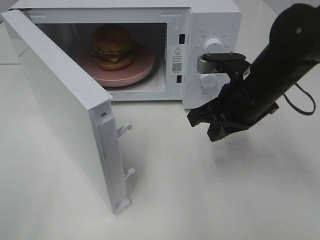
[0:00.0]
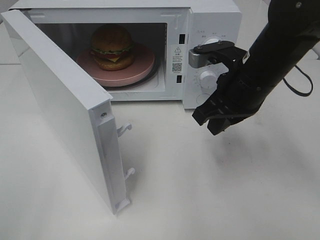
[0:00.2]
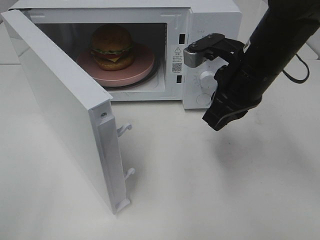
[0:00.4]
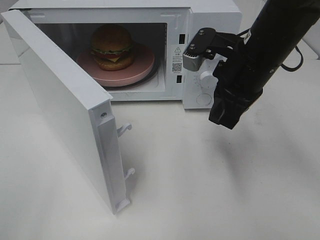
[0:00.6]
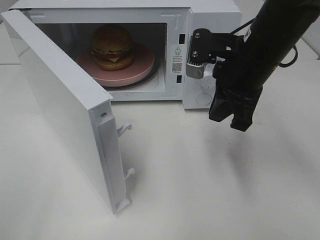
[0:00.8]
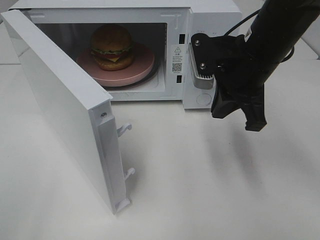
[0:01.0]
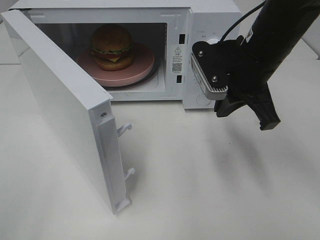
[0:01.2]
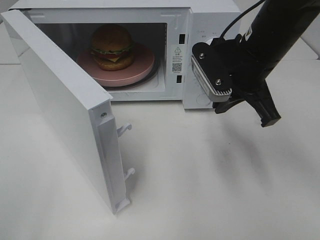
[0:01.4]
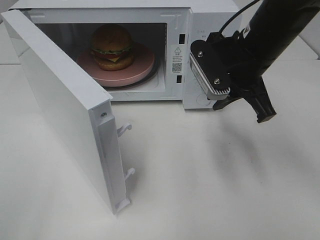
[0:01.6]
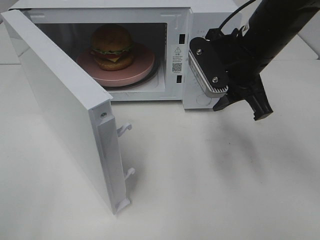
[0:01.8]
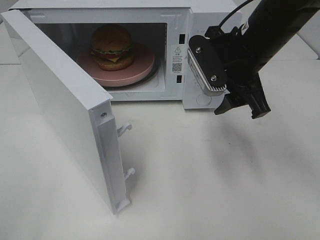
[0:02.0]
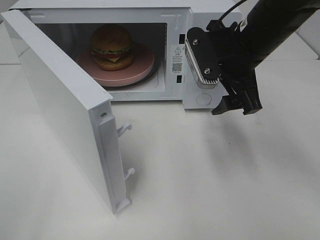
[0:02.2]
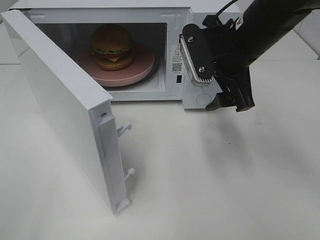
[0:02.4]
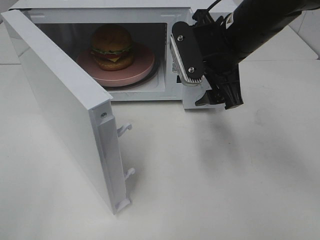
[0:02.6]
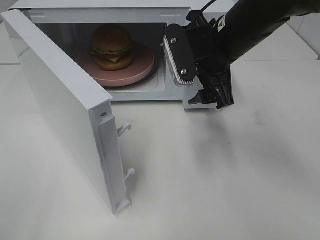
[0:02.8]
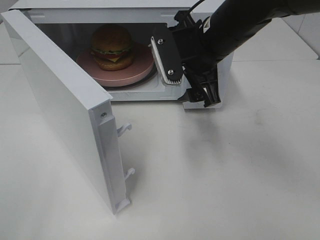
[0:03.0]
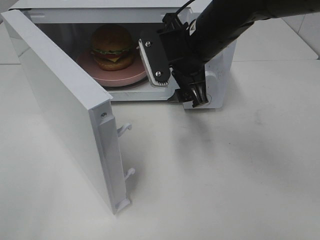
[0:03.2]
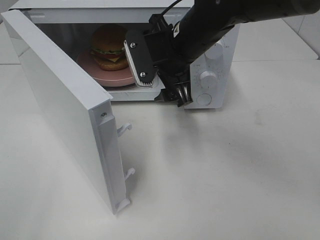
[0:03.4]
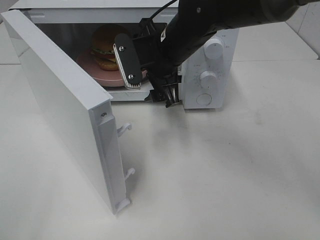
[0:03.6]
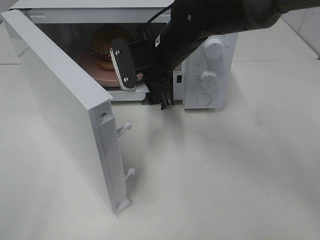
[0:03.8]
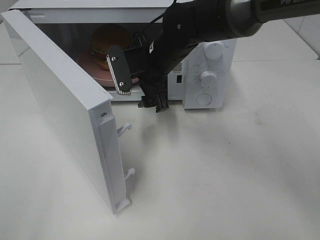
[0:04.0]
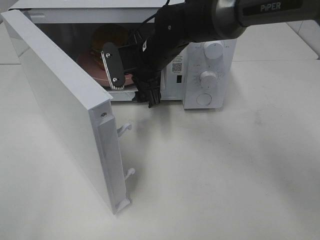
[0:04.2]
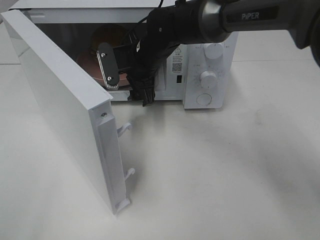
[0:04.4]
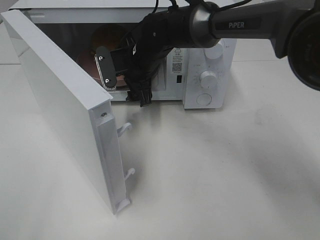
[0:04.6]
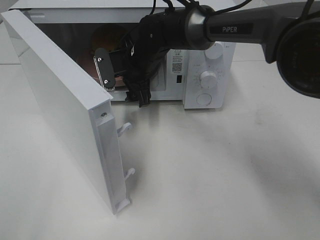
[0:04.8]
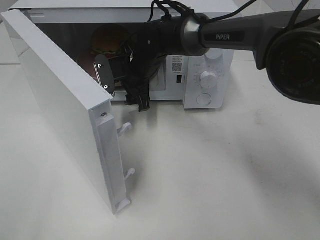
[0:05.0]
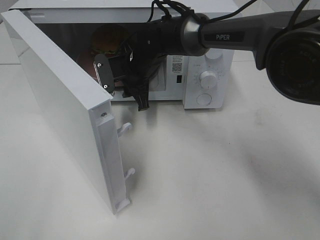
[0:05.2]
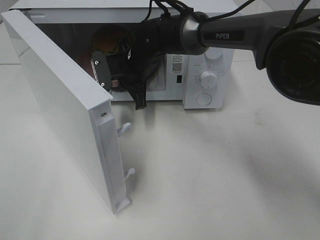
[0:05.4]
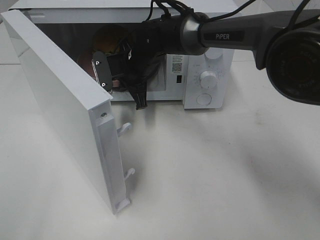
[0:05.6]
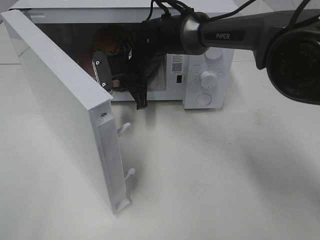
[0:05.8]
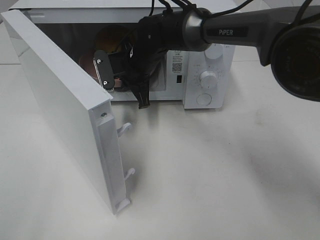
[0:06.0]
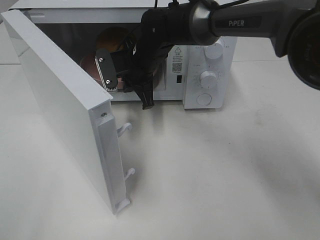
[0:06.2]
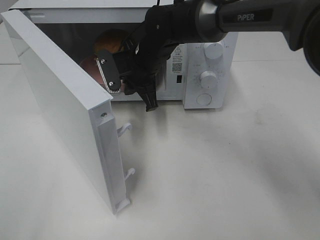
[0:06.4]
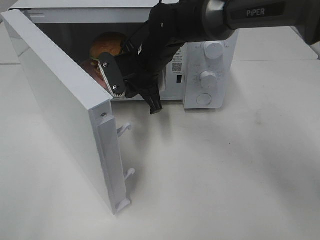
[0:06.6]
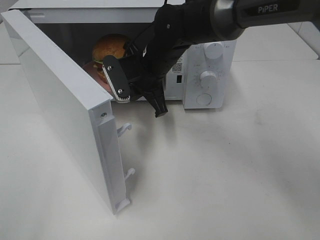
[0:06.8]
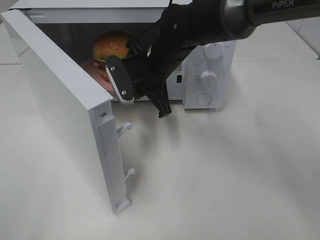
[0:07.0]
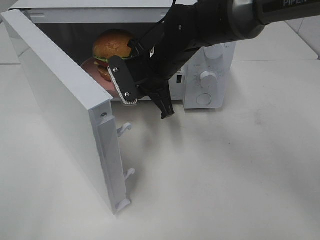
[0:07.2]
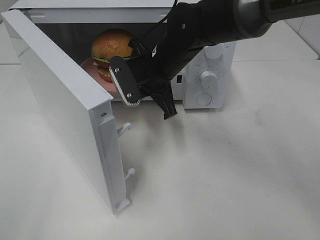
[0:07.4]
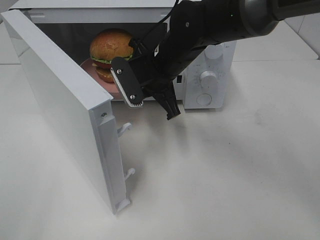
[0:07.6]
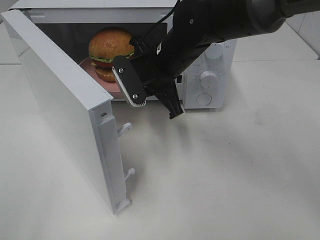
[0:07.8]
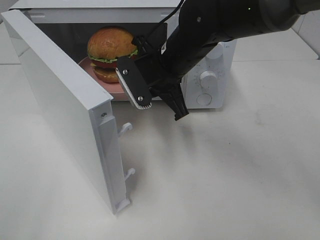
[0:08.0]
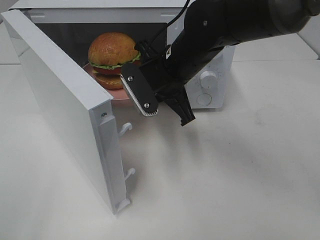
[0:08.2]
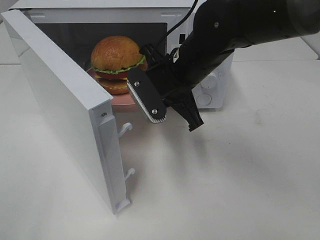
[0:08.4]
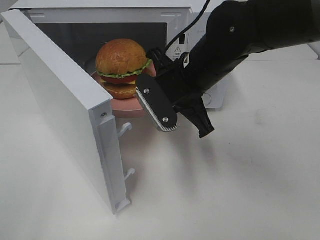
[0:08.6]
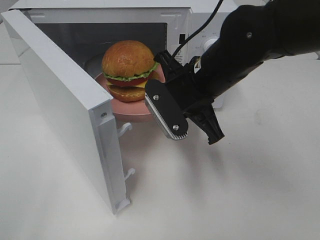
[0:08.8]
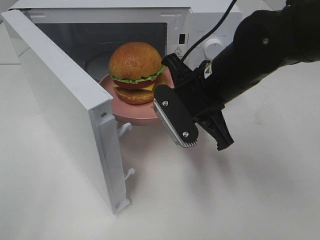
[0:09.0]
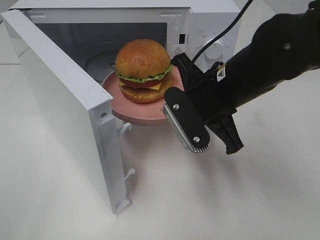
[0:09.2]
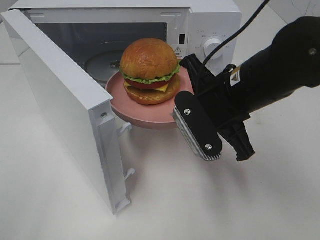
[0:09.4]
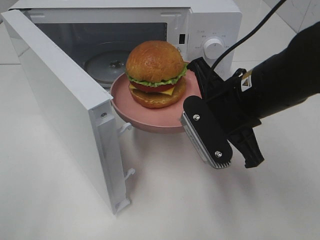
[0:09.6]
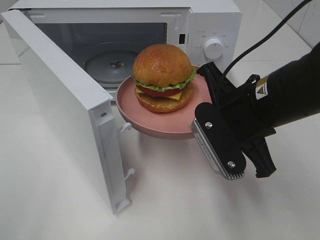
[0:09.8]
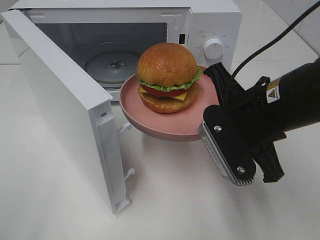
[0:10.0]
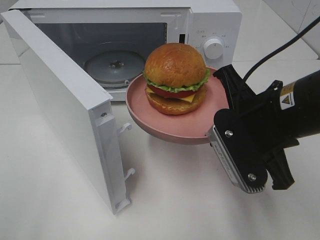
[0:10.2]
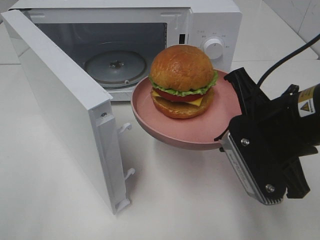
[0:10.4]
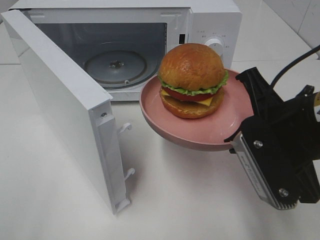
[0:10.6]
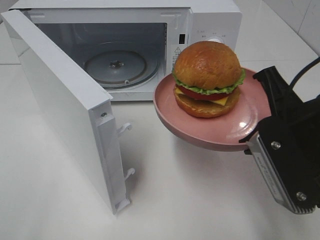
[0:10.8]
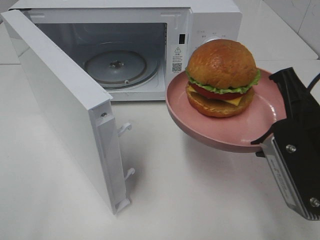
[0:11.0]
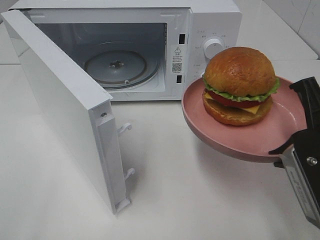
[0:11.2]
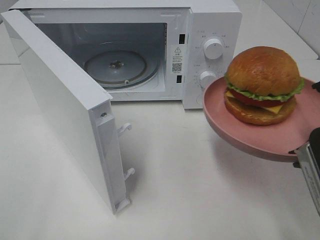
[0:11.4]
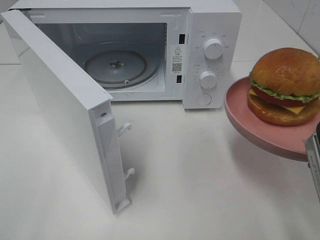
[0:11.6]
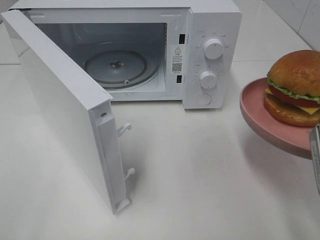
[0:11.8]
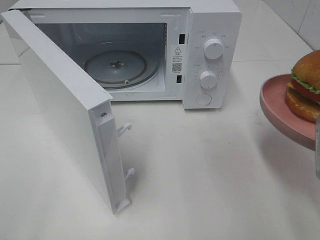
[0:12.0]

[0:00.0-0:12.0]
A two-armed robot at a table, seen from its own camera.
Task of the whole recording: Heat the burger.
Step, 0:00.0 to 0:06.0: Right hand: grab the plate with the hamburger.
0:00.0 to 0:01.6: The right gripper moves roughly 5 cm.
0:01.6 to 0:03.0: The right gripper goes roughly 5 cm to the left, and opens up.
0:03.0 to 0:04.4: The right gripper is displaced to the left, forward and downward by about 15 cm.
0:04.4 to 0:06.0: The right gripper closes up.
0:06.0 to 0:07.6: The right gripper heads backward, covering some 5 cm.
0:07.6 to 0:09.0: The right gripper shifts about 10 cm backward and to the right.
0:09.0 to 0:10.4: The right gripper is displaced backward and to the right by some 10 cm.
0:10.4 to 0:12.0: The right gripper is displaced to the right and backward by approximately 10 cm.

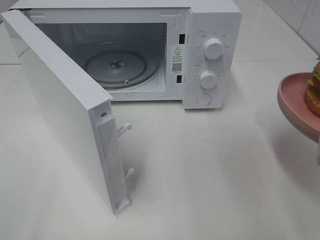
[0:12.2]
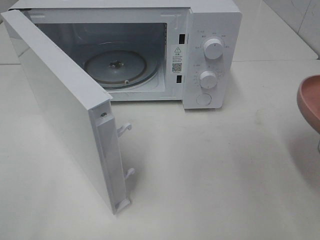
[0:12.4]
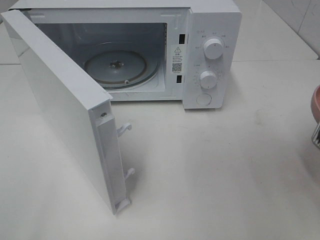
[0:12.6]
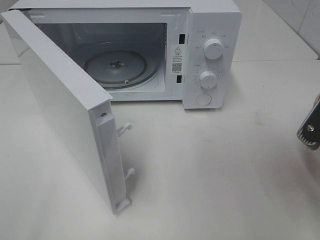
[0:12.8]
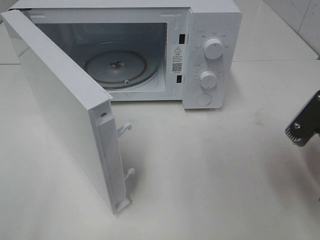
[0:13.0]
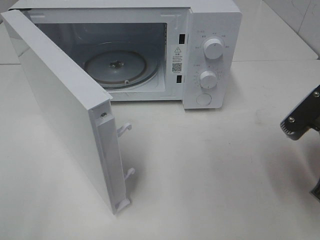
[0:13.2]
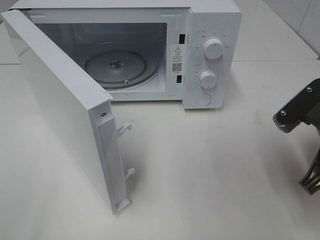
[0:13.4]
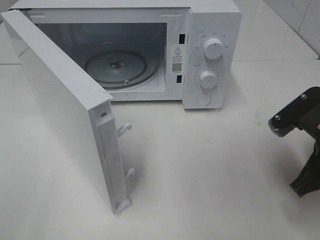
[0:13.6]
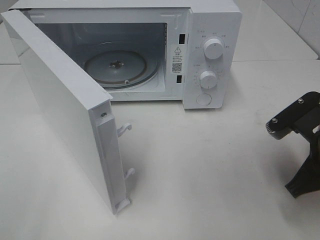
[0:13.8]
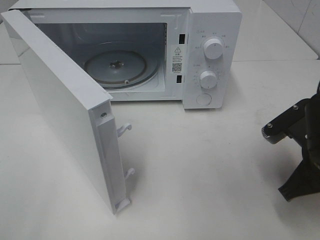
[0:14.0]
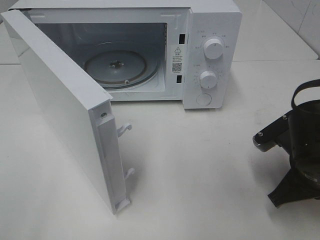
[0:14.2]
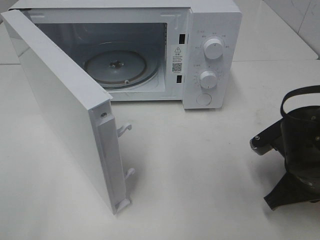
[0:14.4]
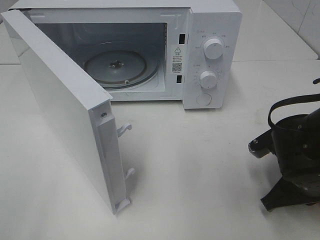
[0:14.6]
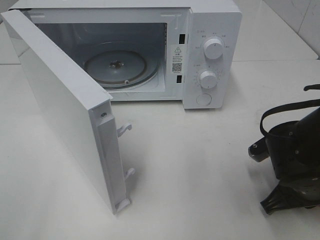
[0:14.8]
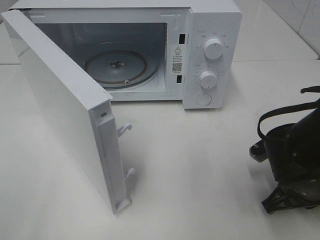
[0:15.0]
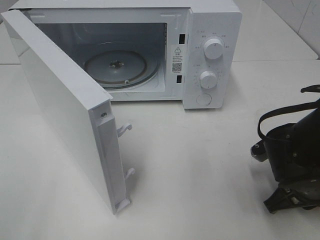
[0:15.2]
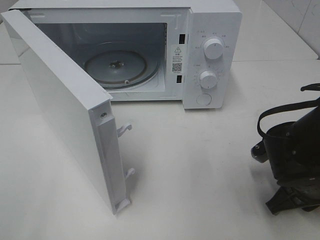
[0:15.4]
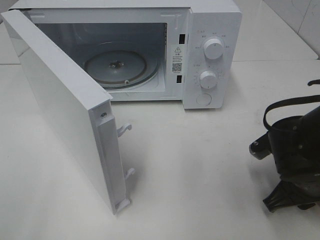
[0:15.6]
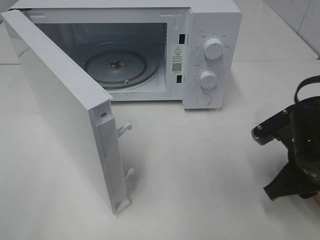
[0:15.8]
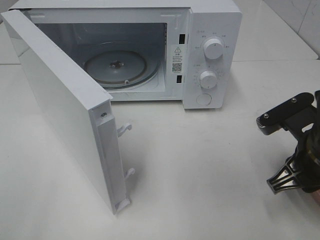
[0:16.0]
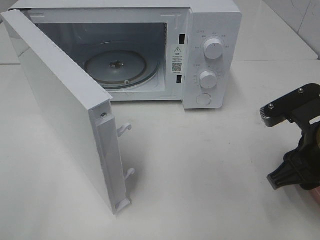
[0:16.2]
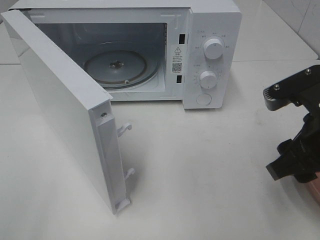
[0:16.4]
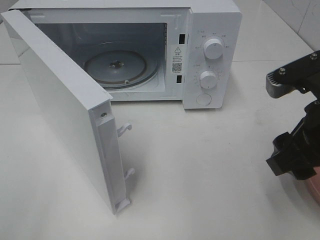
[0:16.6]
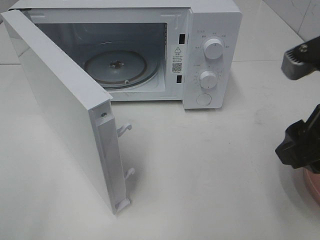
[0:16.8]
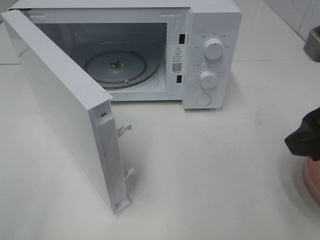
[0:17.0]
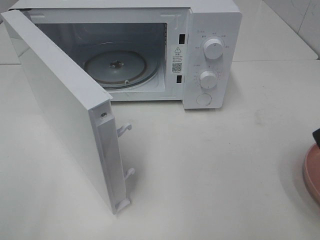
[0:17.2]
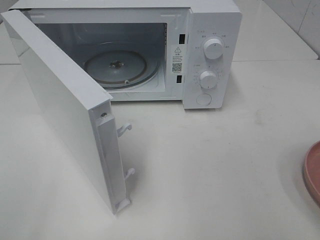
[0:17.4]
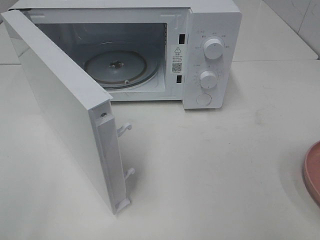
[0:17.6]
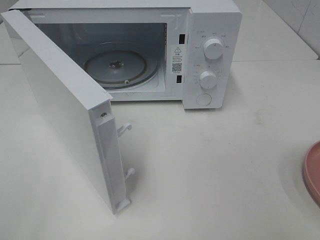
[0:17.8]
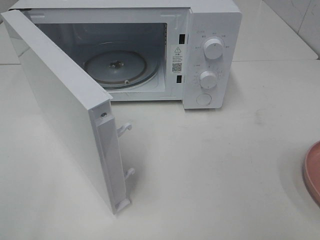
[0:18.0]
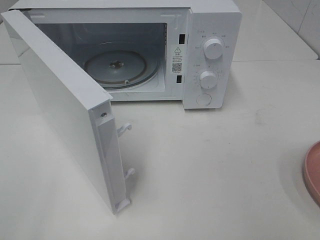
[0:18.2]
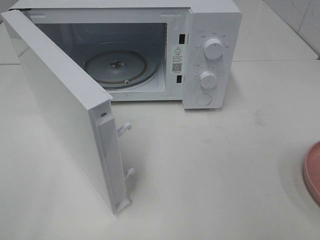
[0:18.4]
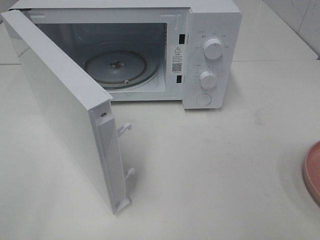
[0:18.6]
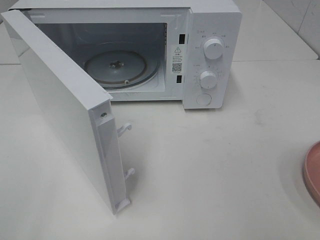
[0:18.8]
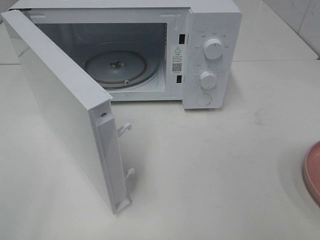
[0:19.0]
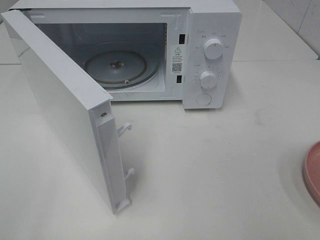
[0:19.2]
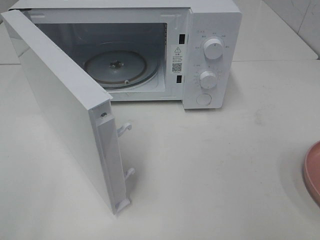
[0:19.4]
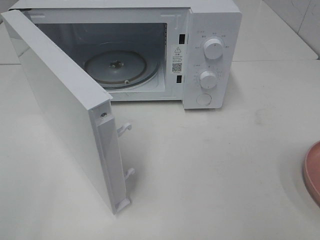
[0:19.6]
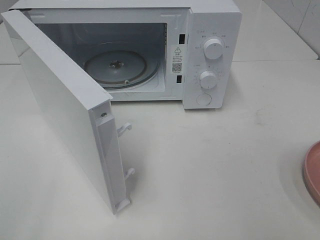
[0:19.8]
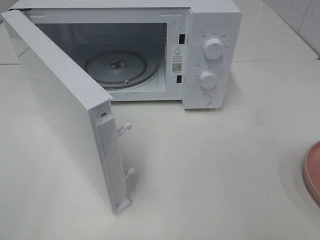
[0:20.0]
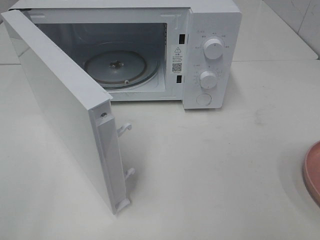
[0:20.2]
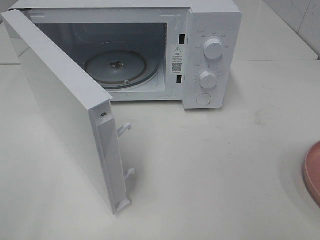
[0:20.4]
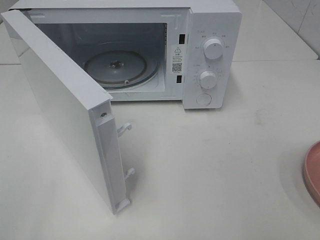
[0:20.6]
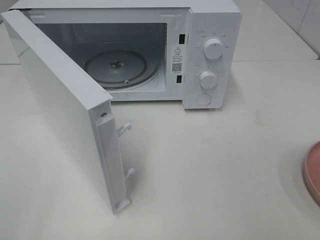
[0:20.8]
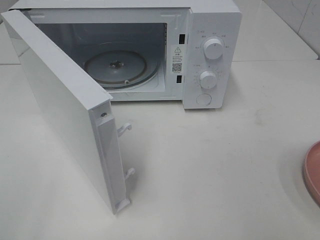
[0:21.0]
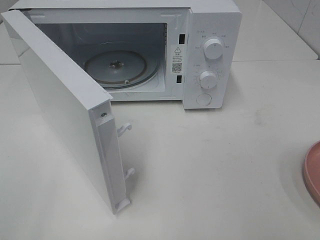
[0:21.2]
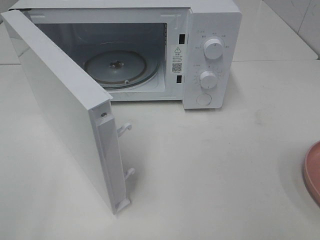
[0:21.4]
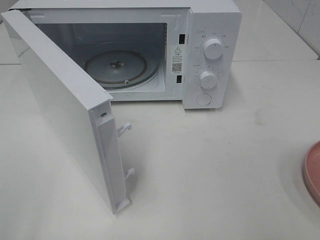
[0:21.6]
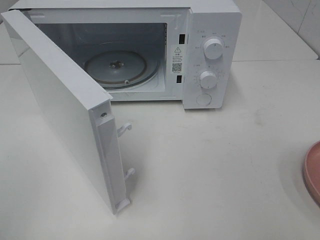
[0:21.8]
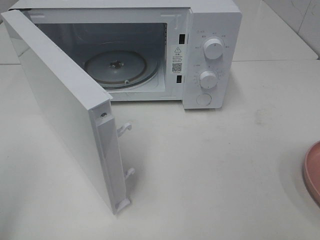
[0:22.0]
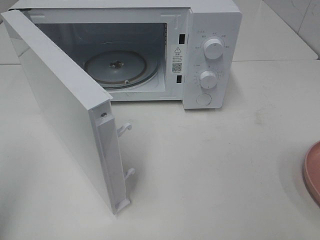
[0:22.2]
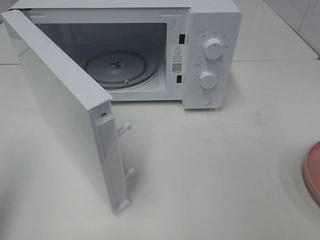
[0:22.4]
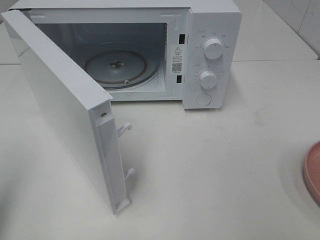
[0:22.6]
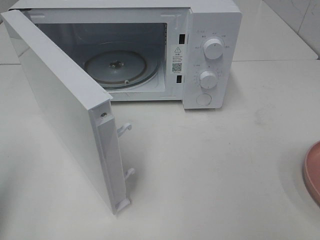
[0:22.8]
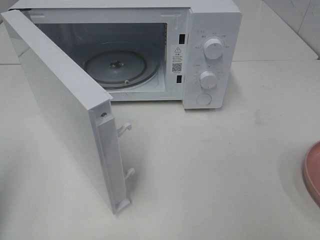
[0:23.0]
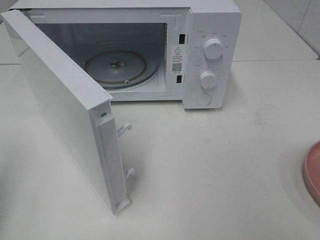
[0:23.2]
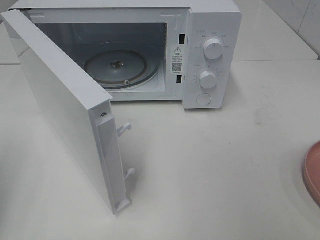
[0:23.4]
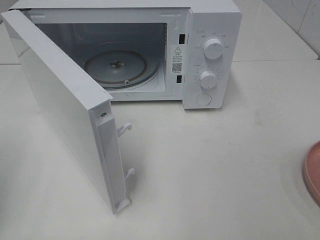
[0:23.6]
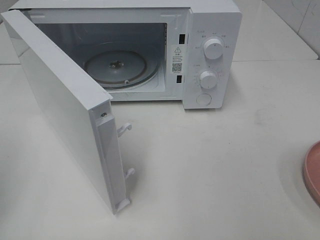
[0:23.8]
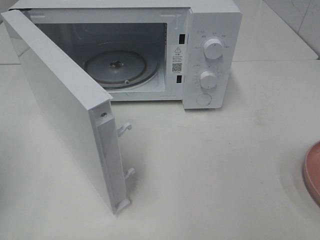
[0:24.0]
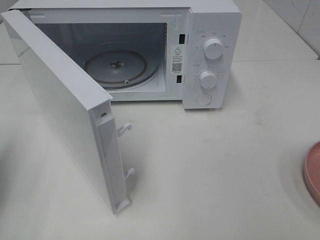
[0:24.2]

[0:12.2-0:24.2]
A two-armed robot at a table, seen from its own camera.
Task of the whole recording: Heat the burger.
Step, 0:12.2 to 0:15.6: Right hand: place the plate on the table.
0:12.2 to 0:13.8: The right gripper goes about 10 cm downward and forward.
0:13.8 to 0:15.2: The right gripper heads downward, covering some 5 cm.
0:15.2 to 0:16.6: The right gripper is displaced upward by some 15 cm, and opens its fingers.
0:16.6 to 0:18.2: The right gripper goes about 15 cm backward and to the right.
0:19.8 to 0:21.2: Neither gripper changes place.
